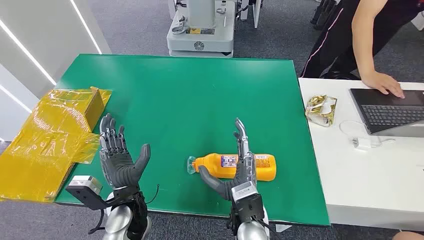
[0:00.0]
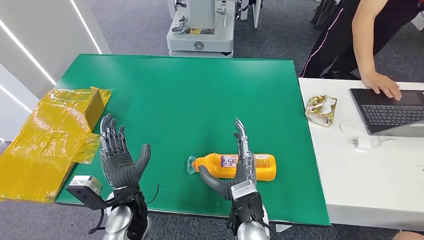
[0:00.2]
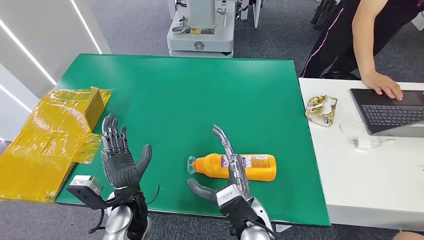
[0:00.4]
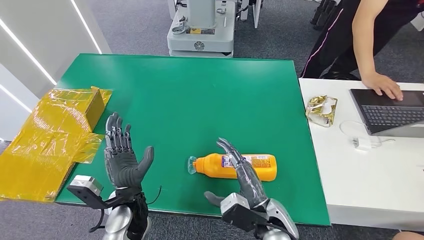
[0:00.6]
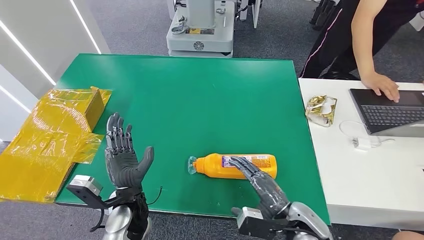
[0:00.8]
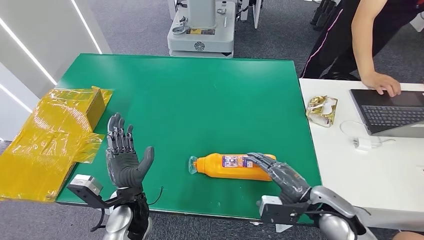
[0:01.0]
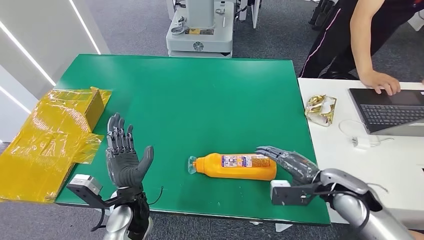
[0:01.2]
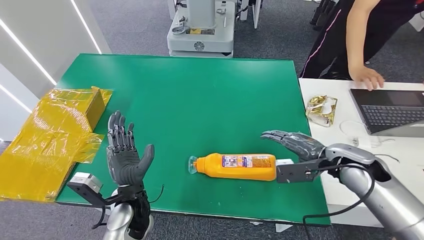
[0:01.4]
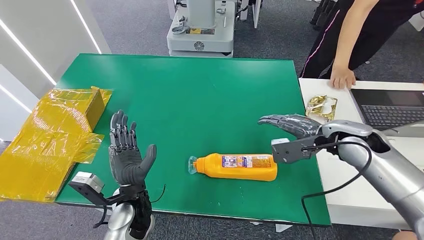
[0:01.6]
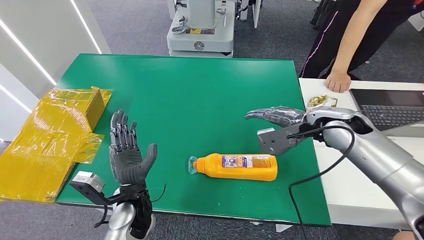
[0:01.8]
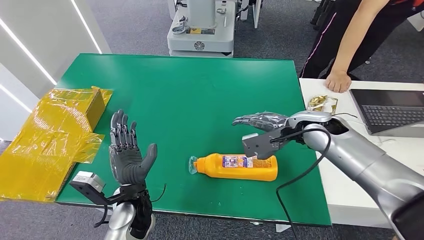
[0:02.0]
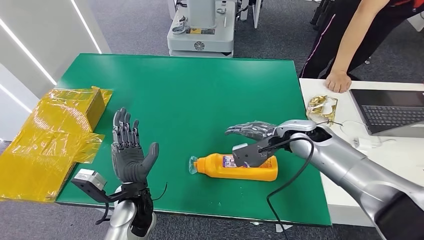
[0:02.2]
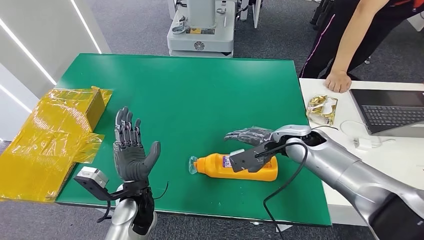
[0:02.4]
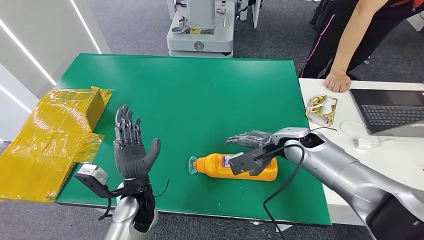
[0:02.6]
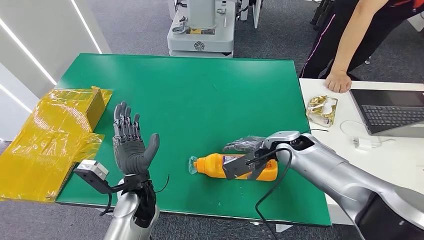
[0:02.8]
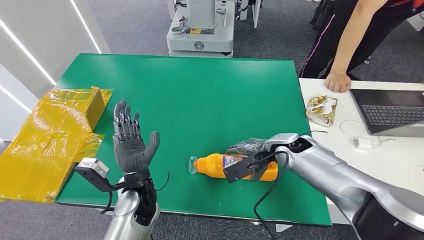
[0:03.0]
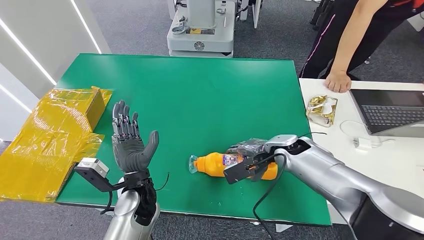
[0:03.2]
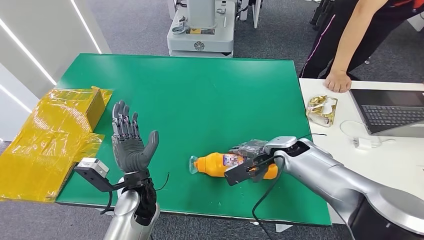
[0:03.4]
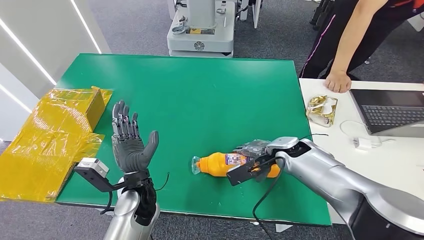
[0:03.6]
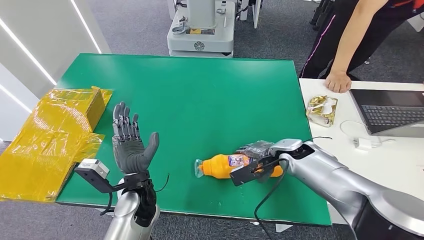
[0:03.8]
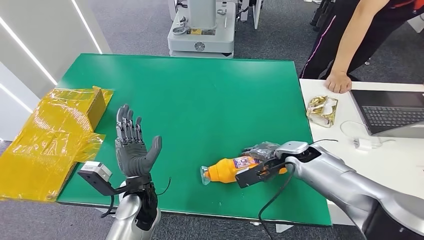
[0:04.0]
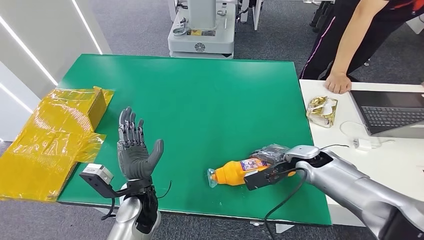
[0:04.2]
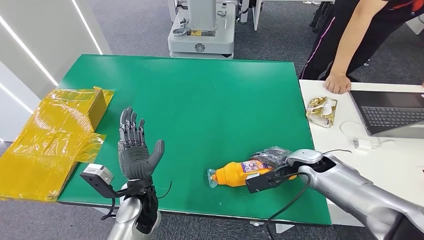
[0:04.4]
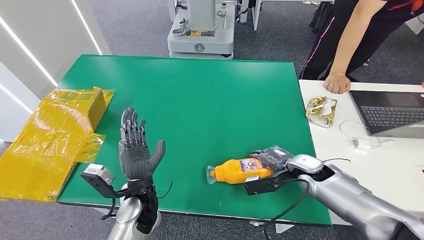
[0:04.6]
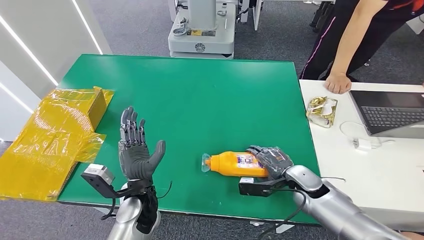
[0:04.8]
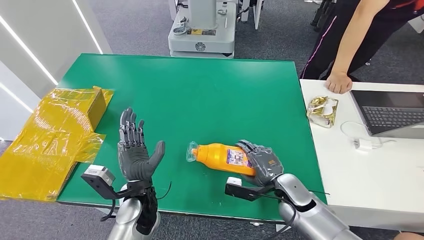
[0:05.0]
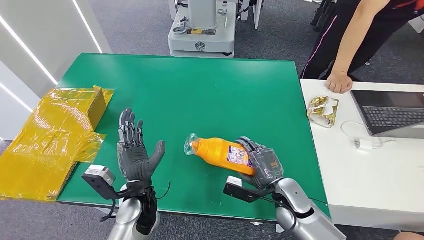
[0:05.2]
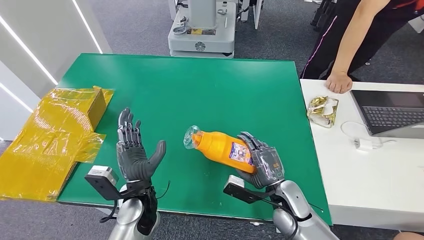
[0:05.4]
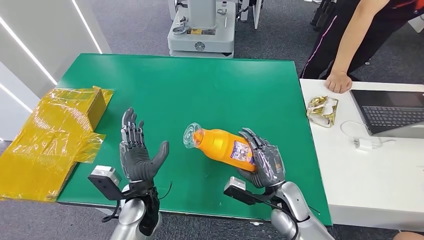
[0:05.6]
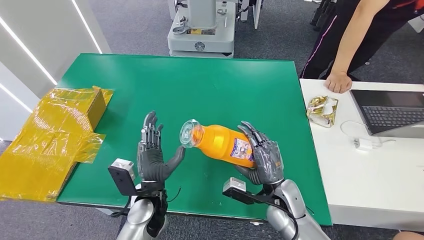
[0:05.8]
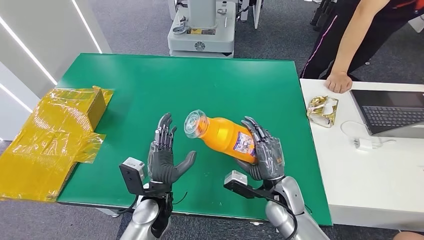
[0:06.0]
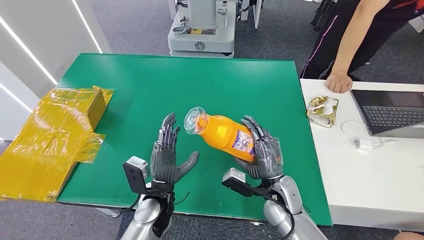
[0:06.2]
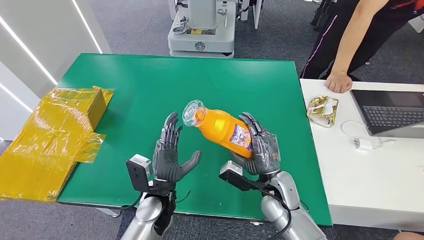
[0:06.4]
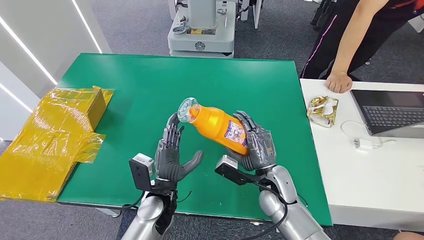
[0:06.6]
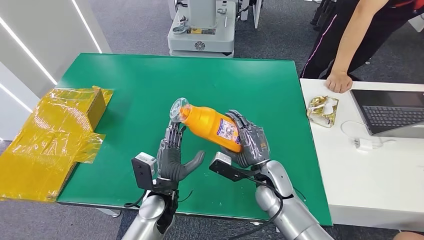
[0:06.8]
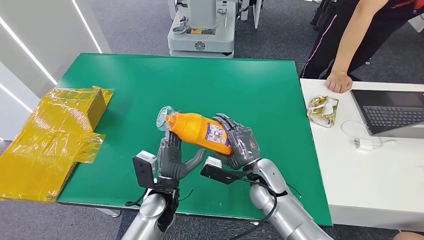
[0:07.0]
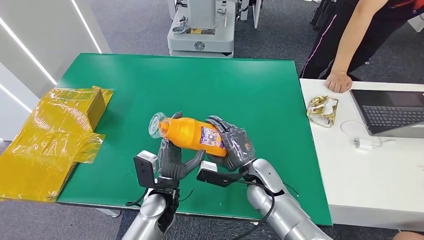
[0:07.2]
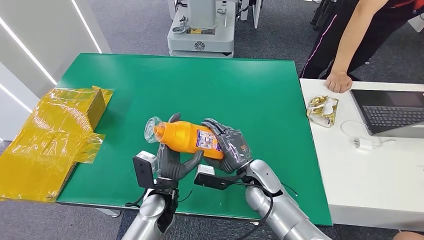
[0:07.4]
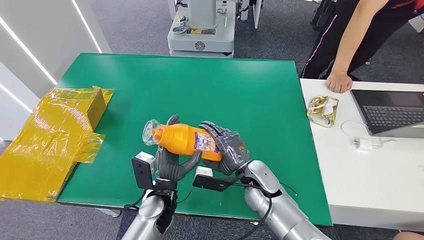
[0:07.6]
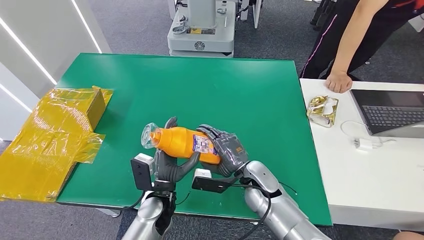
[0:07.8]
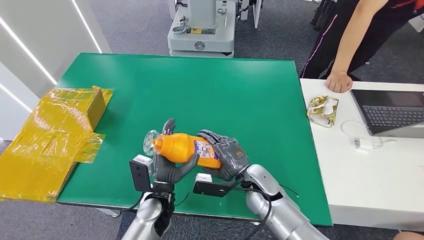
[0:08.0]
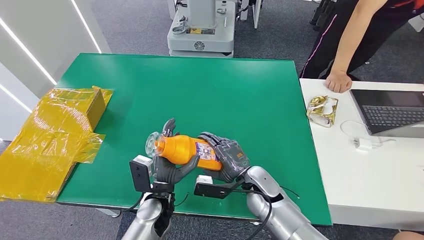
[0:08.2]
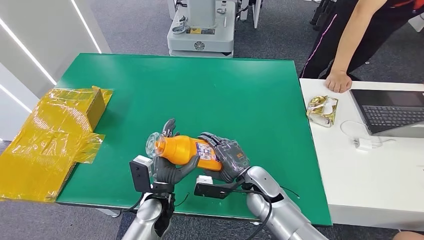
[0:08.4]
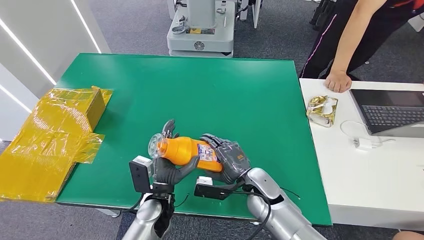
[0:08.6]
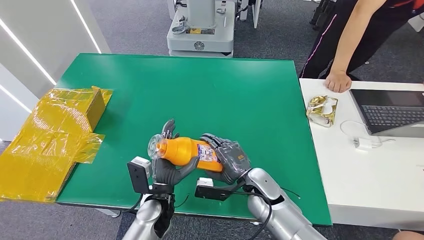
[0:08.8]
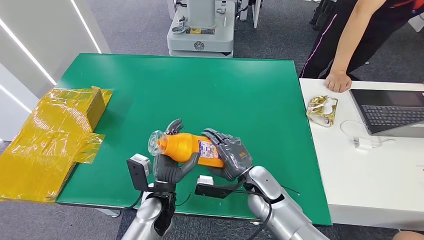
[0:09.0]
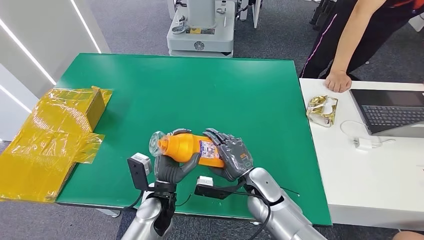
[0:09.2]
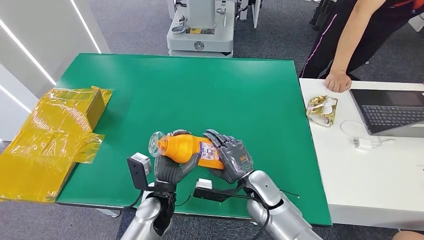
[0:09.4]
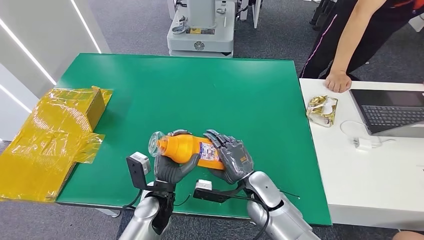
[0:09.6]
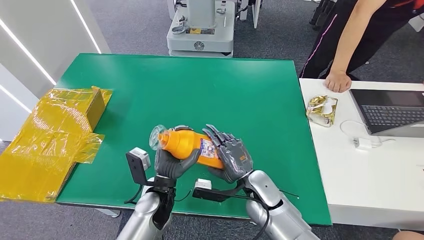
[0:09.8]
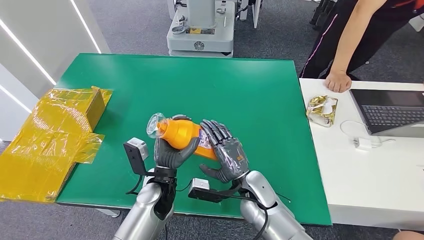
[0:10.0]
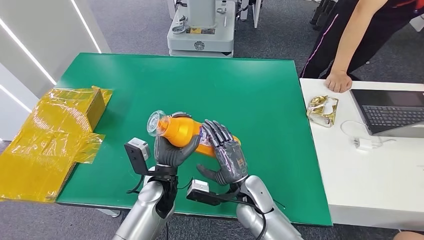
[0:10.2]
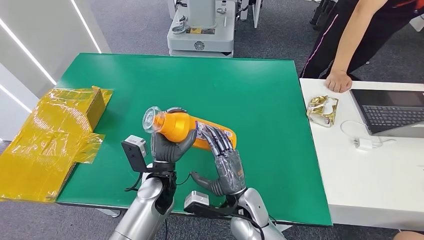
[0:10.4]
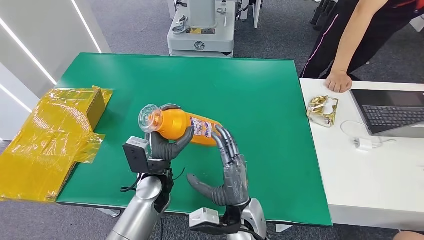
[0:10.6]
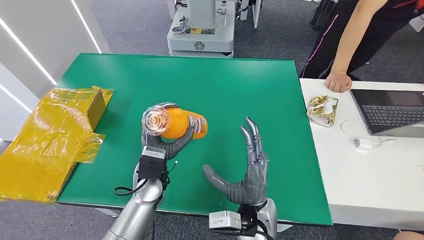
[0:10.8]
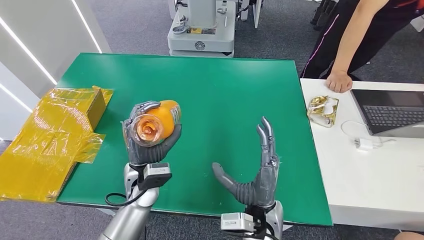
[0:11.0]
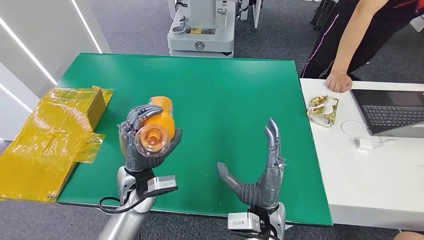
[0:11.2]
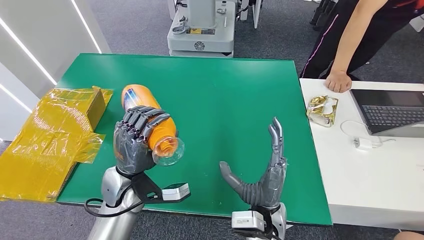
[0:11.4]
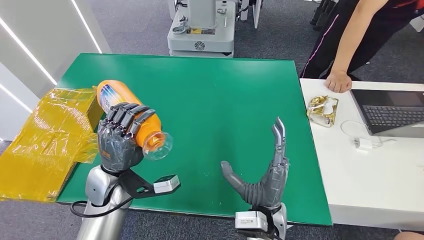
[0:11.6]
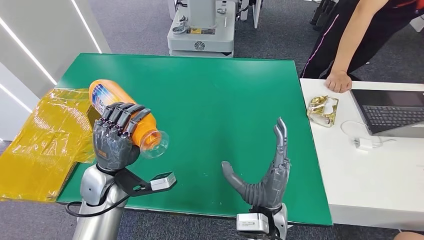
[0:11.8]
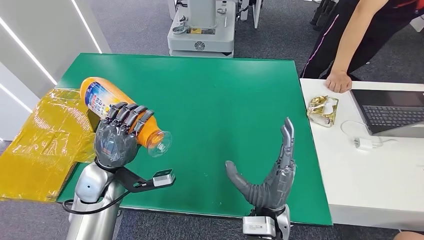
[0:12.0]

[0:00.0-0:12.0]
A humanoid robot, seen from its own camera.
Step, 0:00.0 to 0:06.2: Pick up the bottle from the table.
0:01.6 to 0:03.0: The right hand is displaced to the left and downward by some 15 cm.
0:03.0 to 0:04.4: The right hand travels to the right by roughly 10 cm.
0:06.0 to 0:07.6: The right hand heads to the left, covering some 5 cm.
0:07.6 to 0:09.0: The hands make only small movements.
0:09.0 to 0:10.4: The left hand ends up some 5 cm from where it was. Meanwhile the right hand moves backward, about 5 cm.
0:10.4 to 0:12.0: The right hand moves upward, approximately 5 cm, while the left hand shifts about 15 cm to the left.

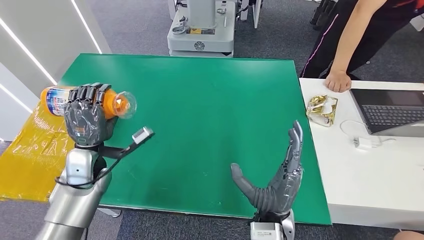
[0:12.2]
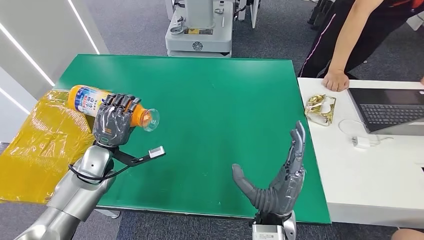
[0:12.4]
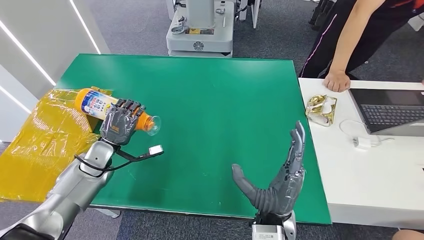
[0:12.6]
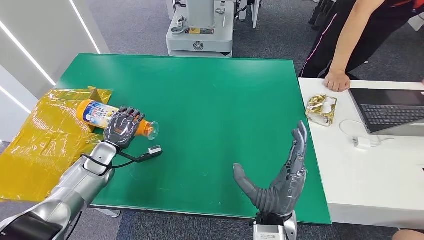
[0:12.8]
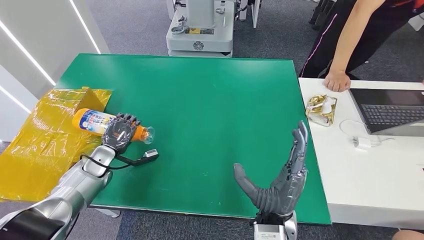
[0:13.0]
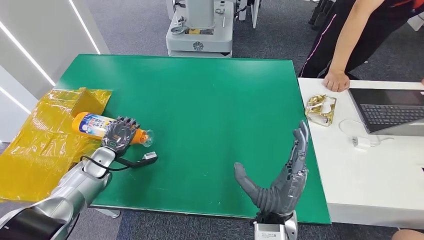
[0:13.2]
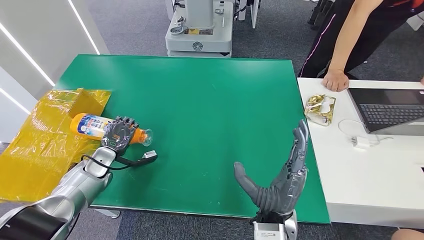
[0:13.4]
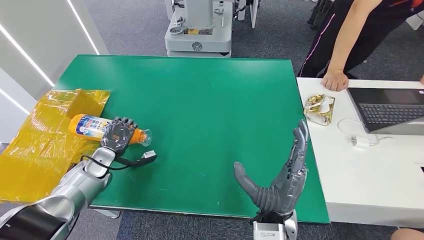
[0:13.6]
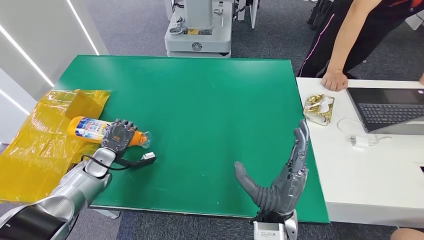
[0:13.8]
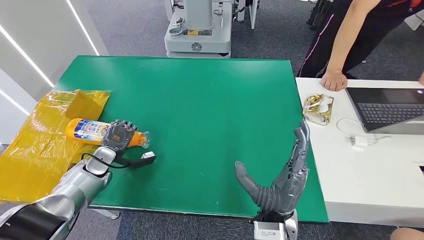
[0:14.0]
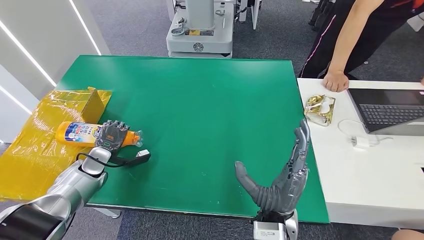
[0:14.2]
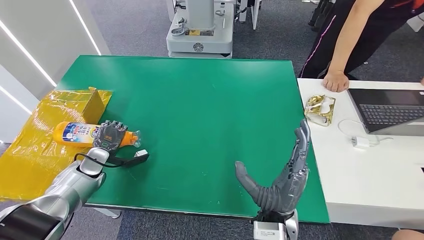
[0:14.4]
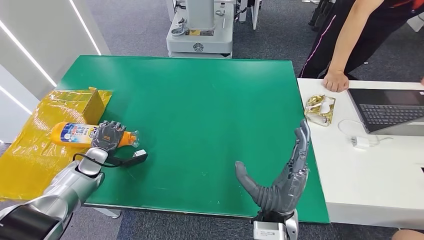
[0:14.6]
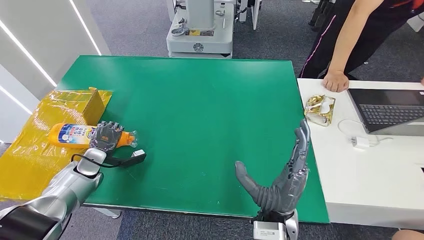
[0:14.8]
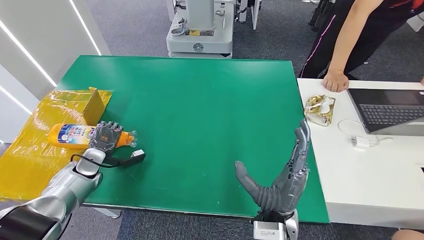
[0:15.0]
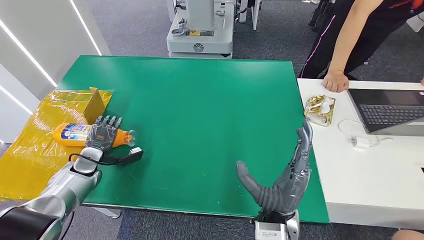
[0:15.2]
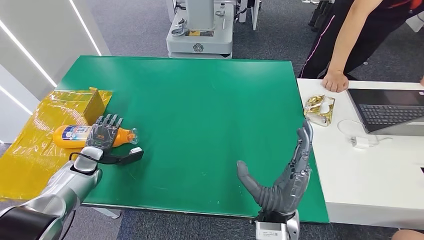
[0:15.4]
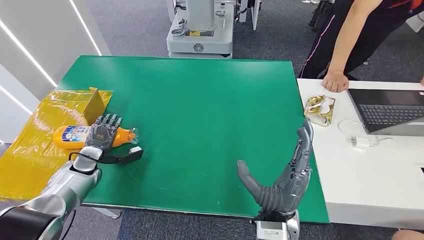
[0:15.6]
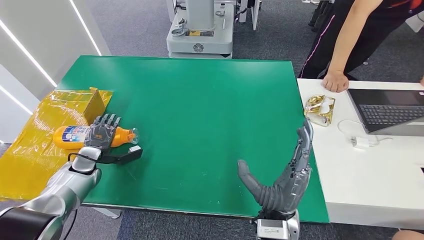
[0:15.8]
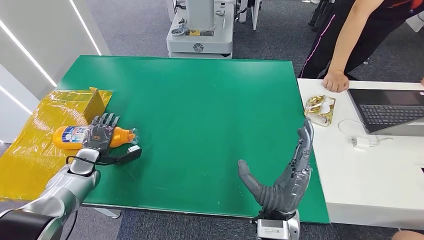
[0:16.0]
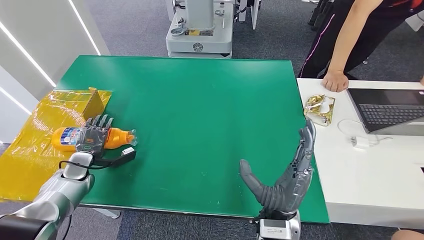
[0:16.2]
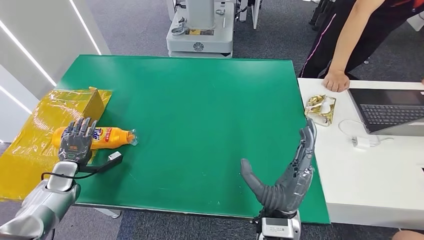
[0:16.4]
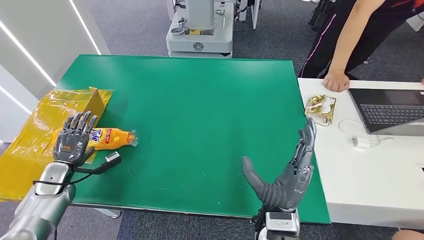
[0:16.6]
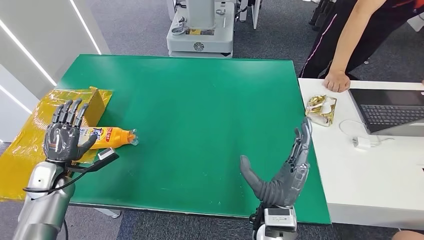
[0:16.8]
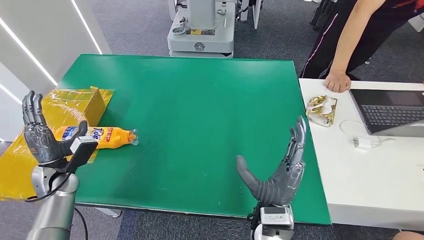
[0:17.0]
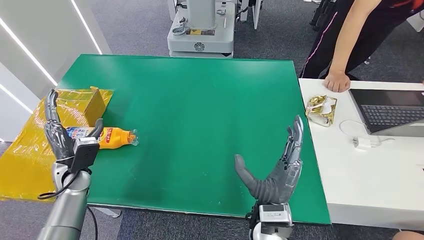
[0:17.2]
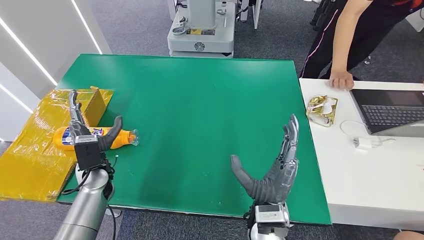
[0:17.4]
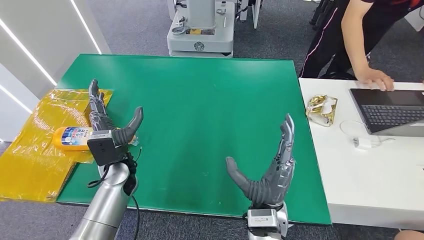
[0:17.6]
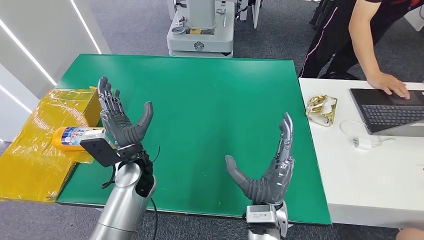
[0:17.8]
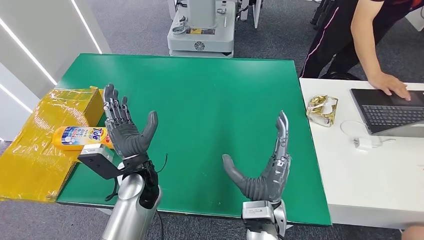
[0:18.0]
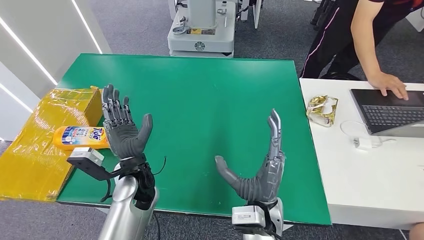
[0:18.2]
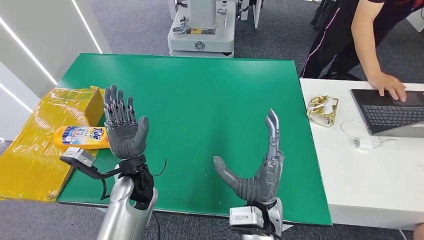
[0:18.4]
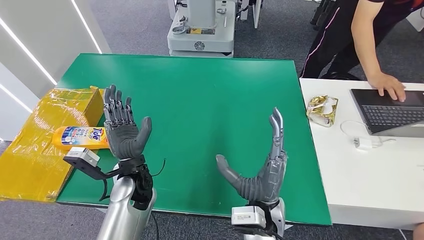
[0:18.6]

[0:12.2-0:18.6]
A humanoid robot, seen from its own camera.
Step, 0:12.2 to 0:18.6: Turn the bottle to the front side.
0:13.8 to 0:15.4: The hands stay close to where they were, moving slightly.
0:15.4 to 0:17.0: The left hand heads backward and upward, covering roughly 10 cm.
0:17.0 to 0:18.6: The left hand goes about 25 cm to the right.
